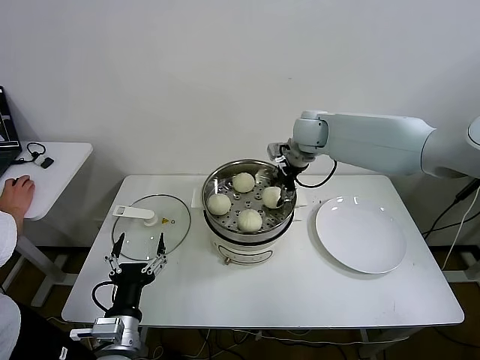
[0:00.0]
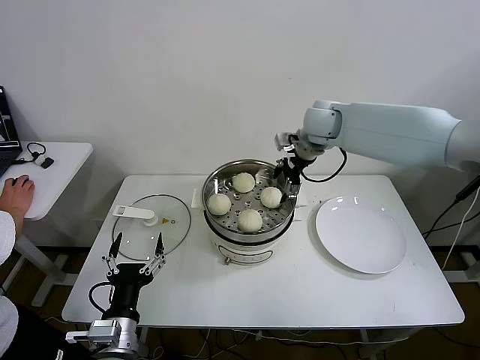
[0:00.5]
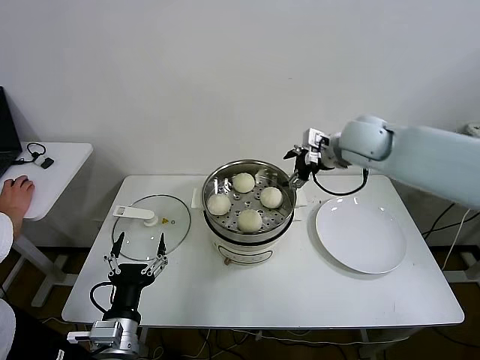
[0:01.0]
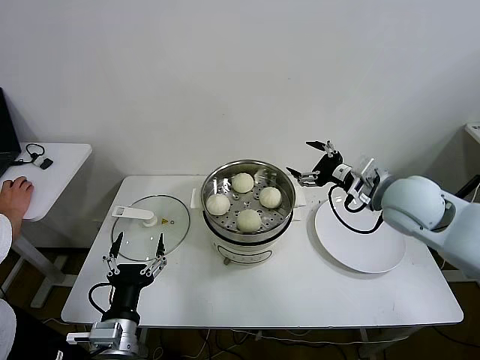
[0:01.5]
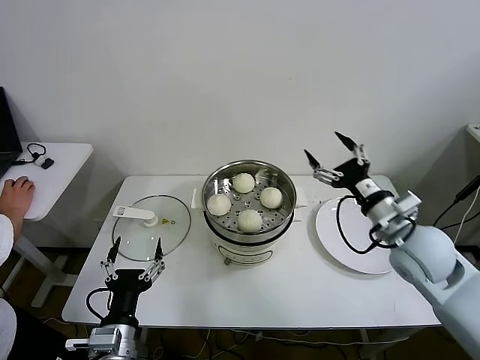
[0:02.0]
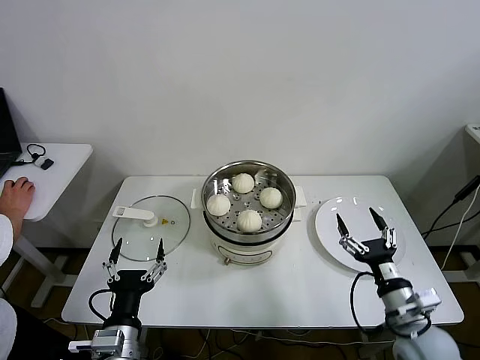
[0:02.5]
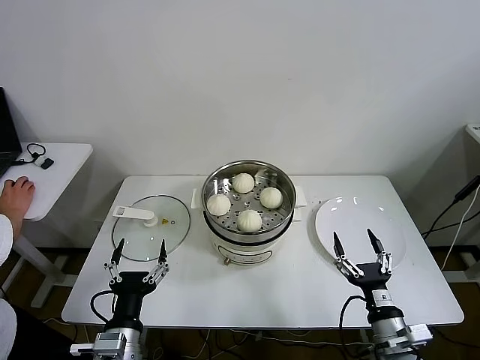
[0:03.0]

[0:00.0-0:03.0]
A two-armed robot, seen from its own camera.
0:00.0 to 0:01.5: The right gripper shifts roughly 25 cm backward and to the right, and opens.
0:01.5 to 0:03.0: The right gripper shifts approximately 35 cm backward and downward.

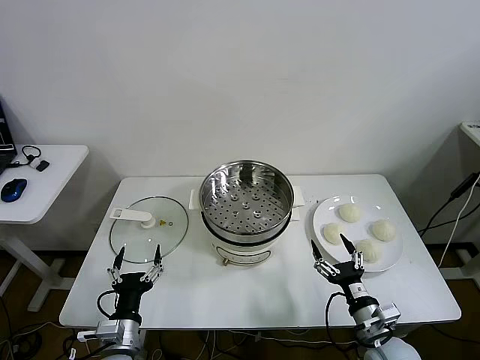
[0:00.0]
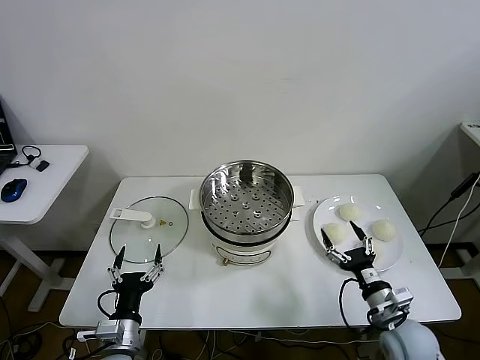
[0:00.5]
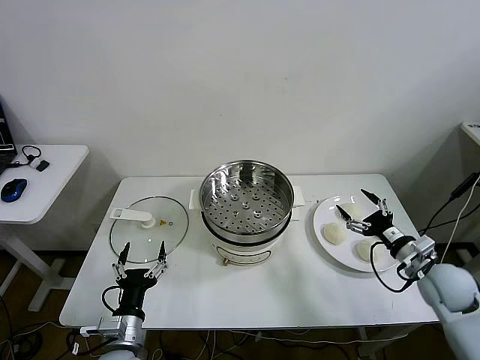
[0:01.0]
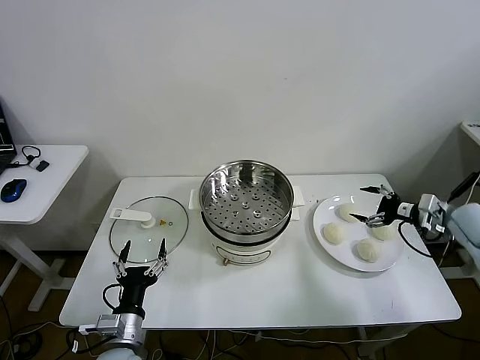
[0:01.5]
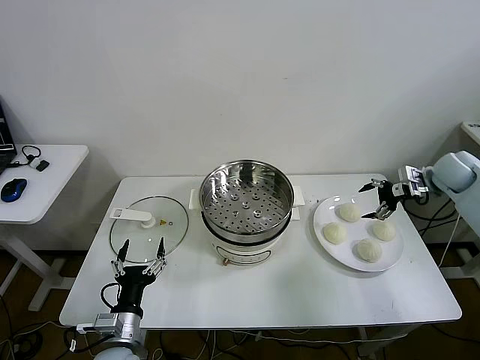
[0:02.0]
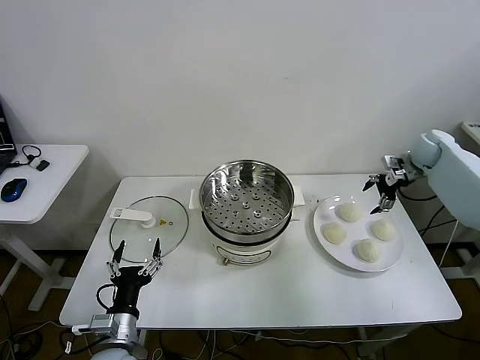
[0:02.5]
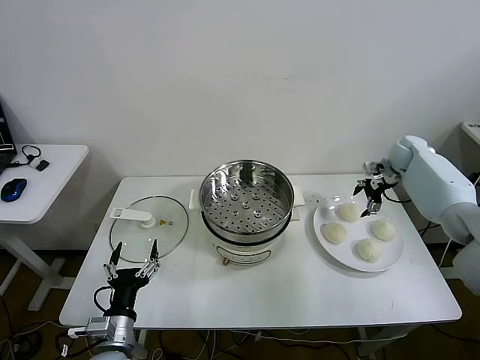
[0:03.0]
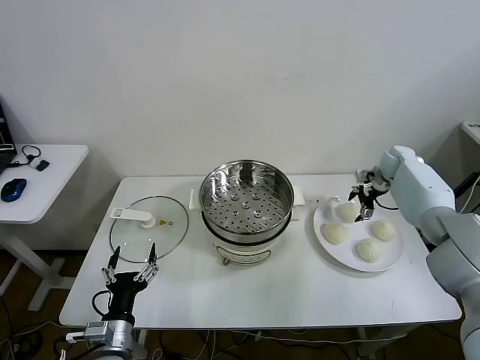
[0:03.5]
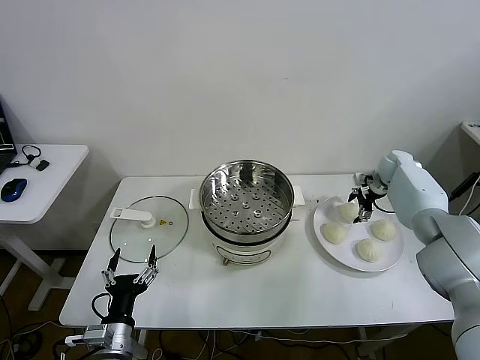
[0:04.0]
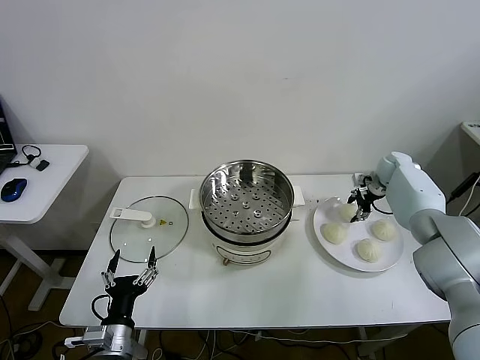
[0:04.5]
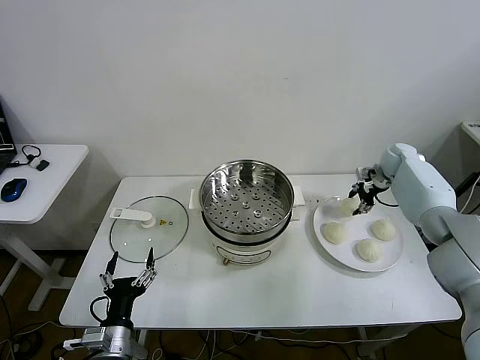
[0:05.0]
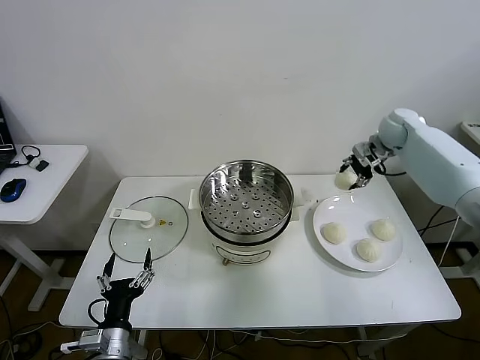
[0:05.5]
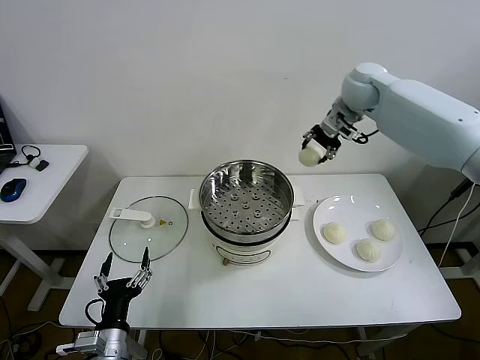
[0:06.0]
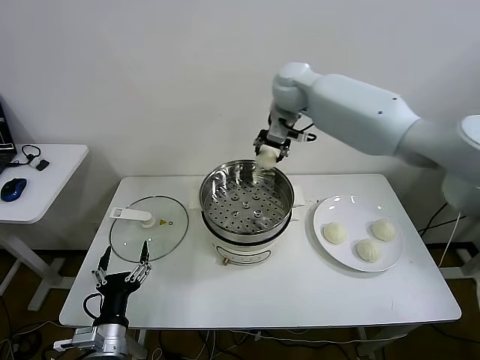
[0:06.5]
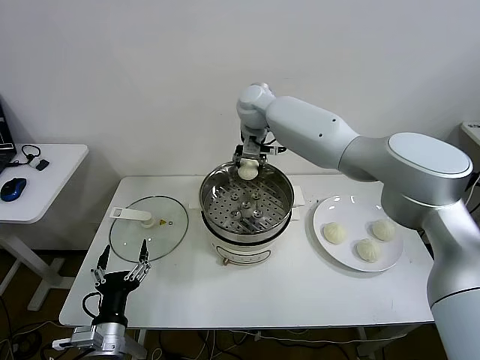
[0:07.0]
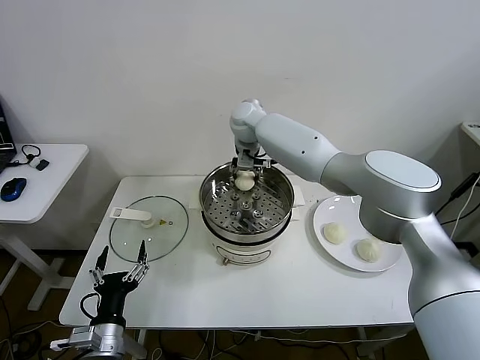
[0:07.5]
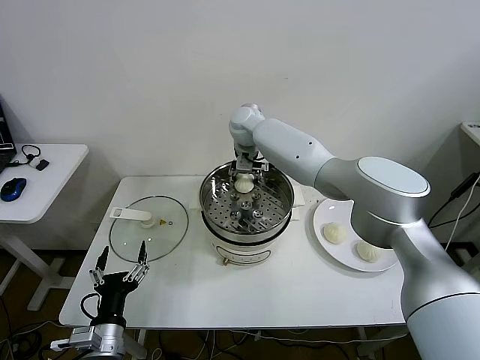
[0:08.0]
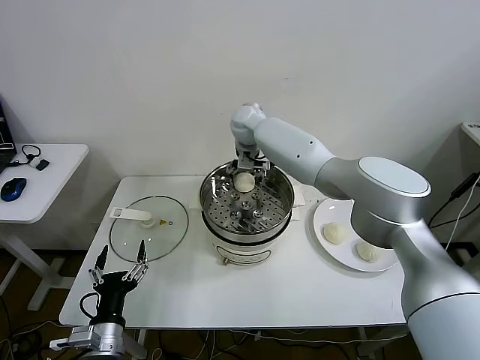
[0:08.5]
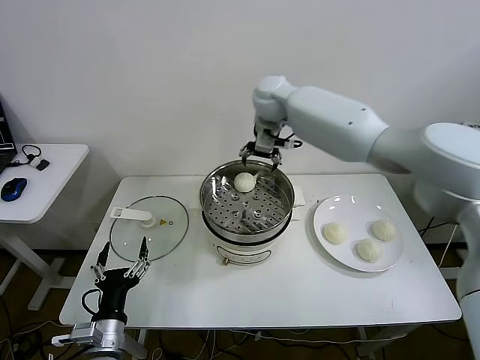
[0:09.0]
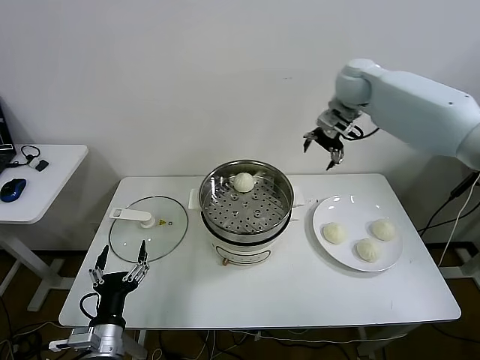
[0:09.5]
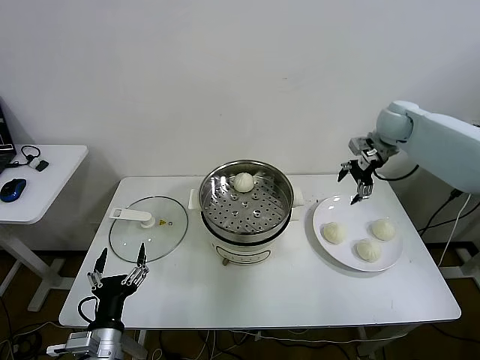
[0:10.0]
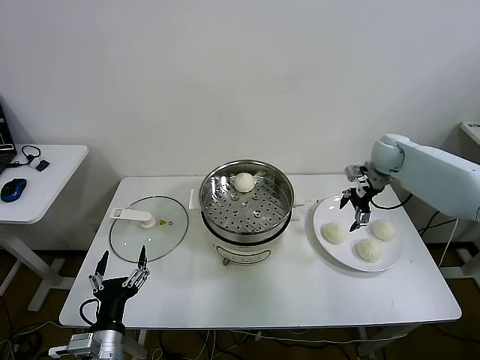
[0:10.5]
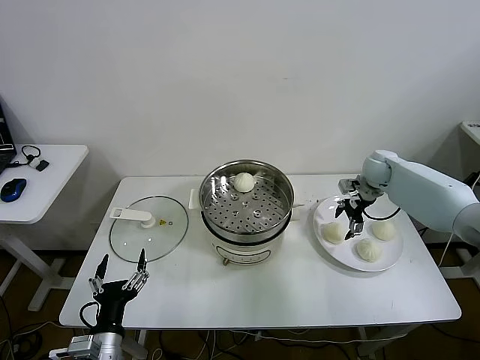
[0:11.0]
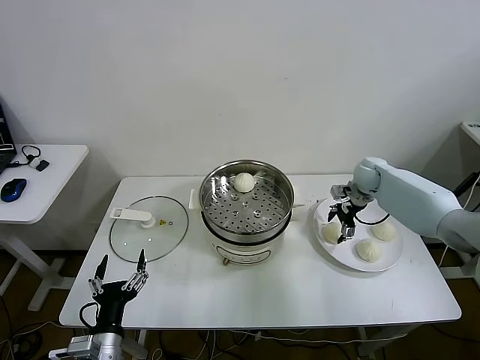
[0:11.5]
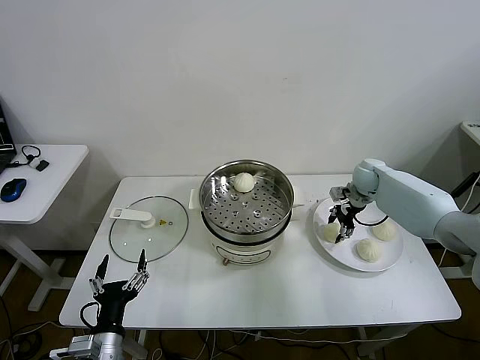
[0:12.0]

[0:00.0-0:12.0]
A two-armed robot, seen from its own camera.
Step, 0:00.0 to 0:04.5: Grasp the baozi in the plate with right gripper.
Step, 0:05.0 to 0:08.5: Place the baozi on the steamer with right gripper.
0:02.0 to 0:04.0: The right gripper goes roughly 15 cm downward, forward and to the left.
0:04.0 to 0:06.0: The right gripper moves upward and to the left, about 35 cm, and closes its fingers.
0:06.0 to 0:08.0: The right gripper is displaced to the left and downward by some 25 cm.
0:08.0 to 0:10.0: The right gripper heads to the right, covering some 35 cm, and opens its fingers.
0:10.0 to 0:12.0: The right gripper is displaced downward by some 15 cm, and closes.

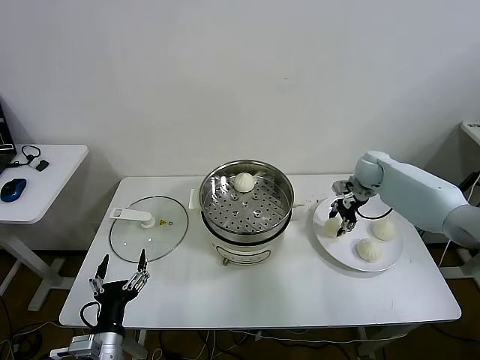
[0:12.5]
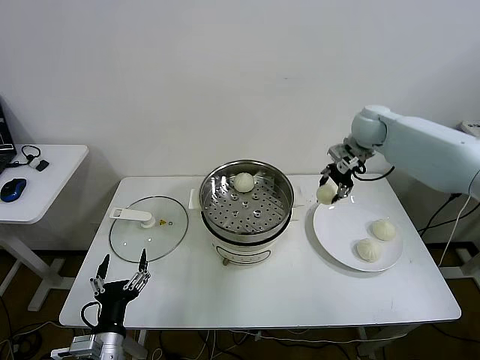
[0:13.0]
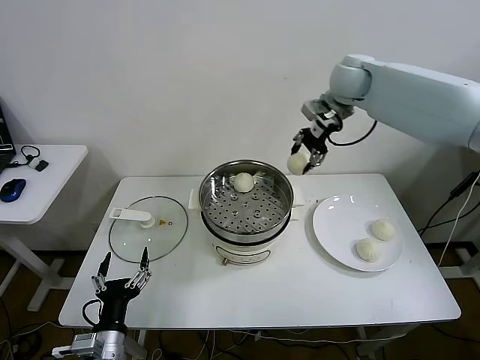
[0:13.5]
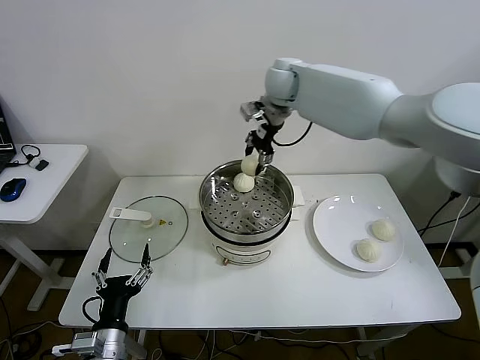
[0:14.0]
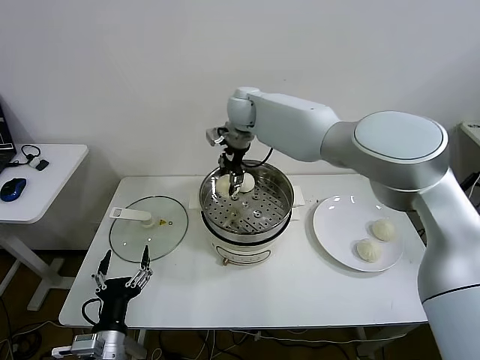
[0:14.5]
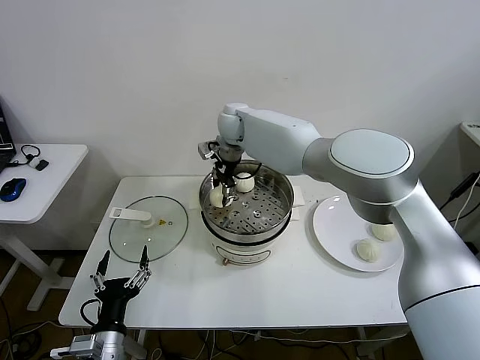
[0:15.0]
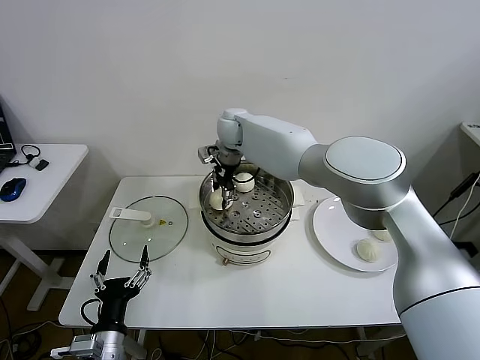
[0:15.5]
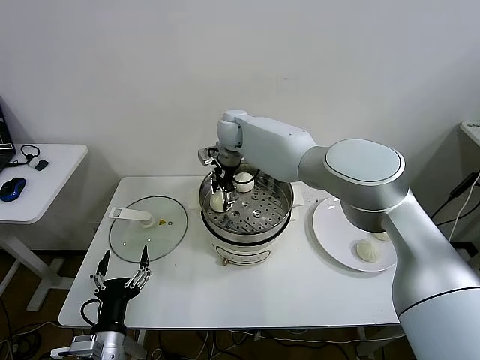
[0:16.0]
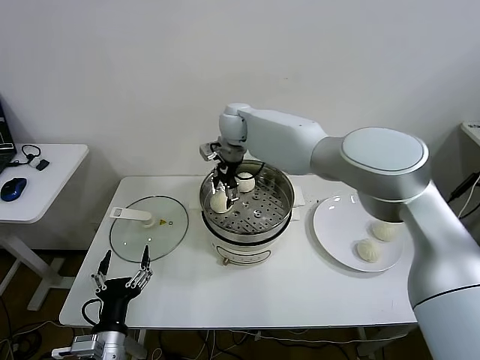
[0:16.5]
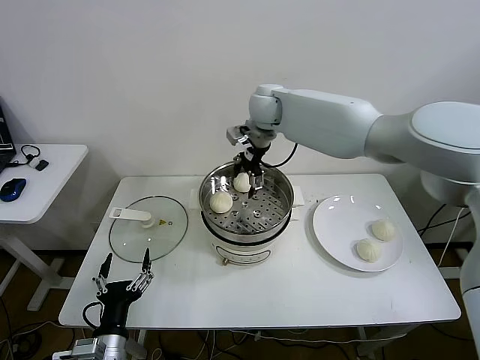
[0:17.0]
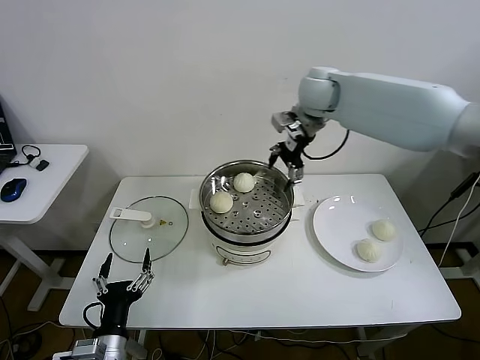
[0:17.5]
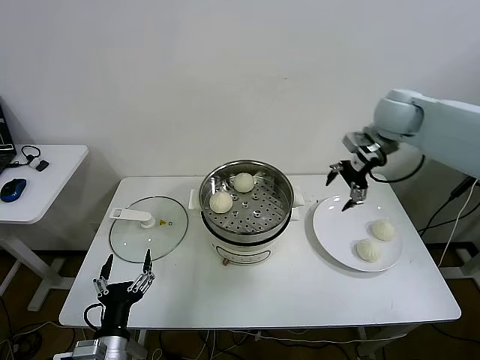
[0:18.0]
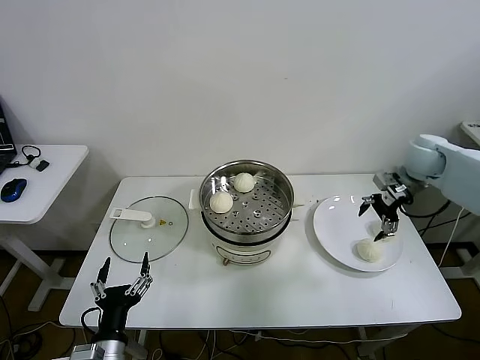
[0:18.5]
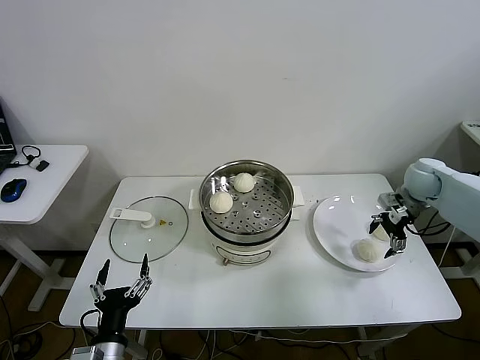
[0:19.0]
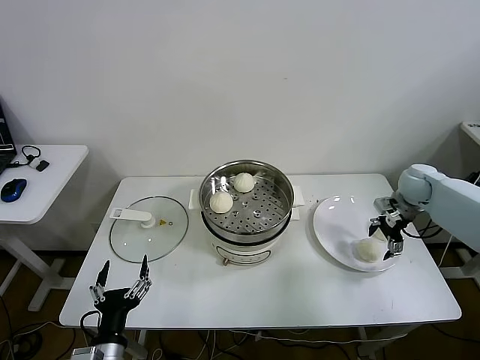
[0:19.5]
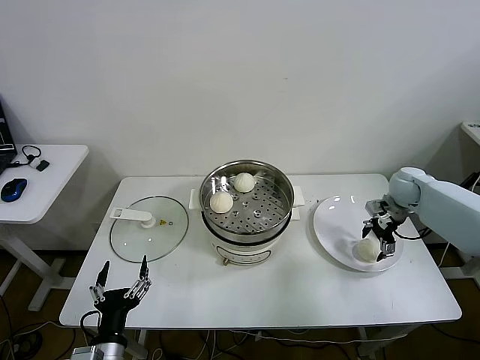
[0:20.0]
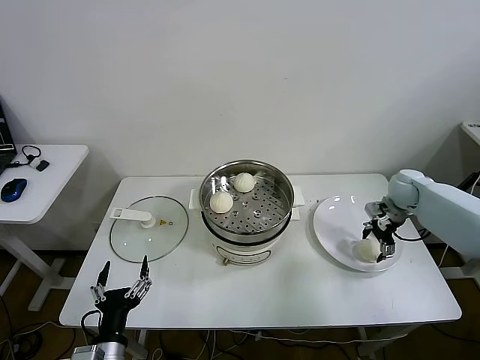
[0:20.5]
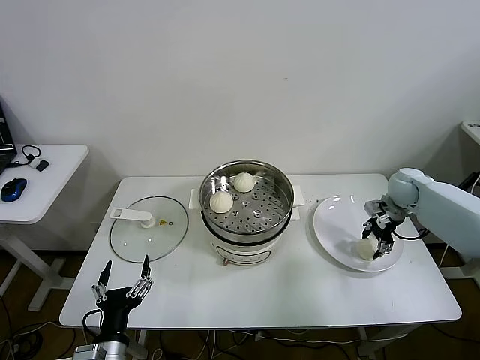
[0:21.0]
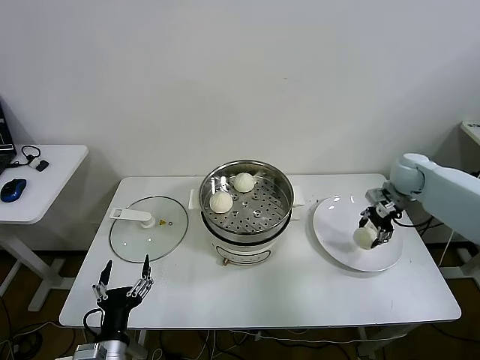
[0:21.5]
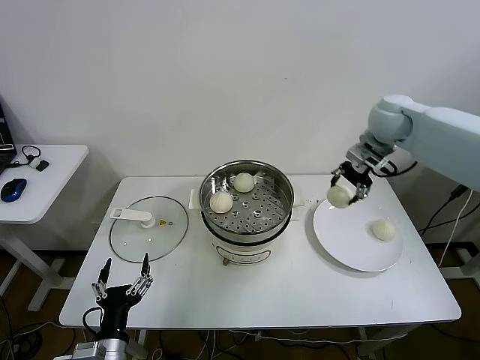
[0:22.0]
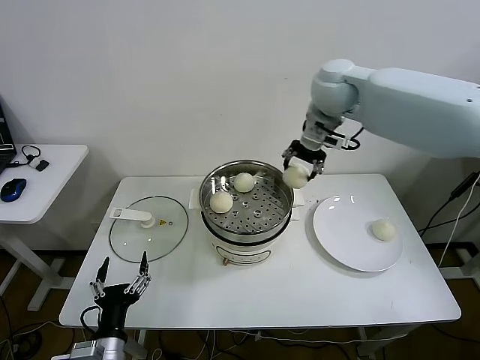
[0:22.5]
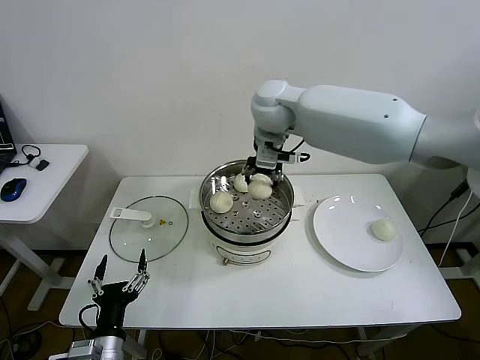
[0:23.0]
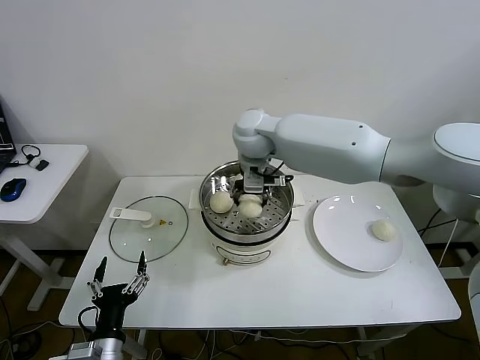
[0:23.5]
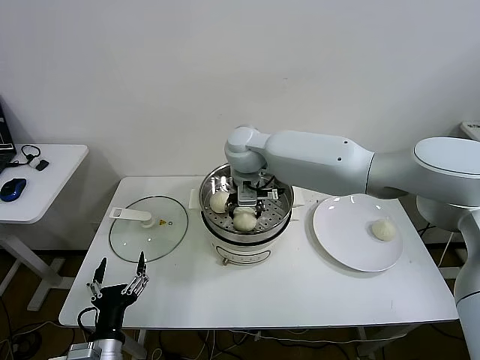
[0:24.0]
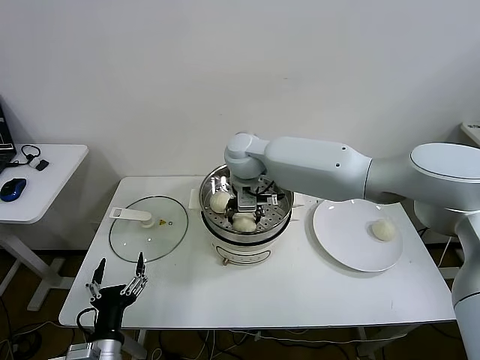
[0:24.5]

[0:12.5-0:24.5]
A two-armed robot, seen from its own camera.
Step, 0:12.5 to 0:16.0: Place the baozi on the steamer with right gripper.
Step, 0:16.5 to 0:21.0: Grasp the baozi in the plate with right gripper.
0:12.5 to 0:14.5: The right gripper shifts about 40 cm to the left and upward.
0:14.5 to 0:16.5: The right gripper opens its fingers.
0:16.5 to 0:18.5: The right gripper moves to the right, some 40 cm.
0:18.5 to 0:20.5: The right gripper is displaced downward by about 10 cm.
0:20.5 to 0:22.5: The right gripper is displaced upward and to the left by approximately 40 cm, and closes.
0:22.5 to 0:24.5: The right gripper is displaced to the left and downward by approximately 20 cm.
